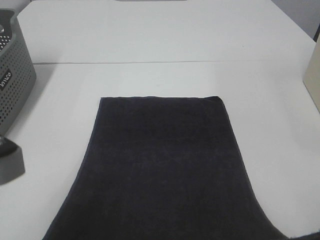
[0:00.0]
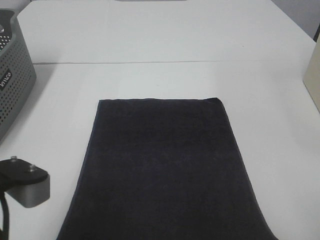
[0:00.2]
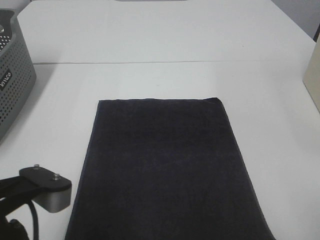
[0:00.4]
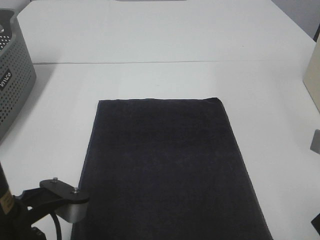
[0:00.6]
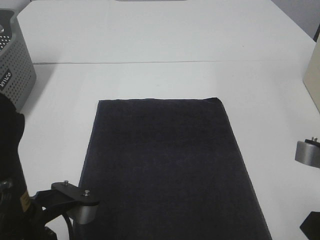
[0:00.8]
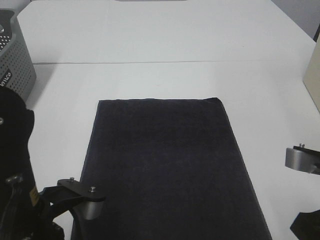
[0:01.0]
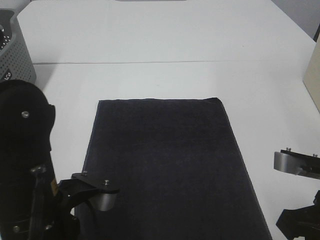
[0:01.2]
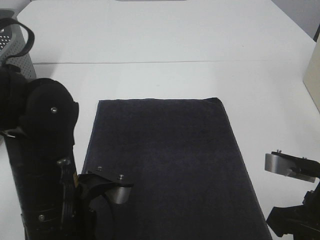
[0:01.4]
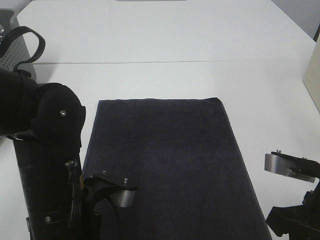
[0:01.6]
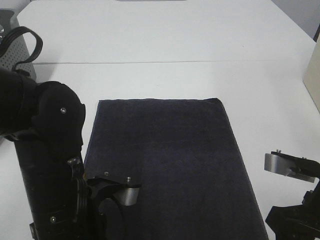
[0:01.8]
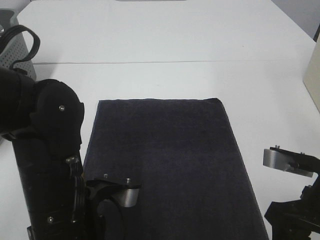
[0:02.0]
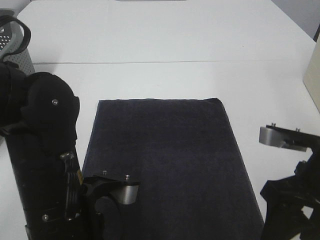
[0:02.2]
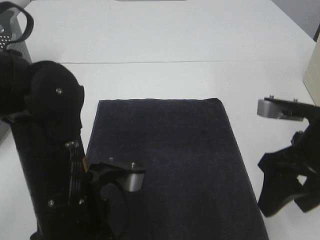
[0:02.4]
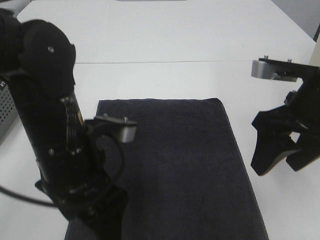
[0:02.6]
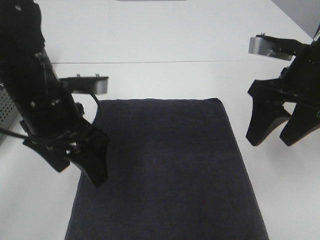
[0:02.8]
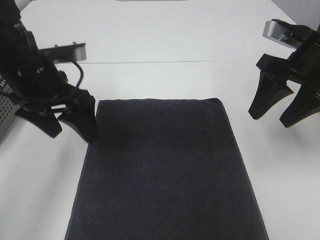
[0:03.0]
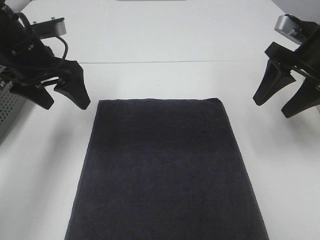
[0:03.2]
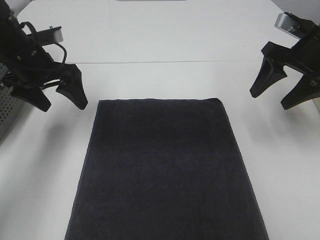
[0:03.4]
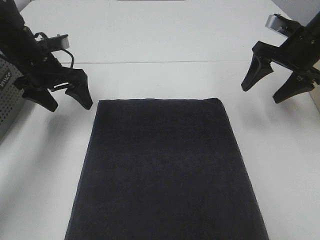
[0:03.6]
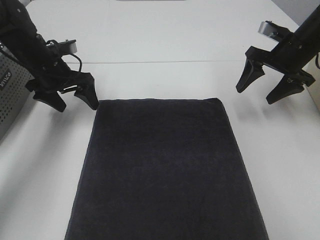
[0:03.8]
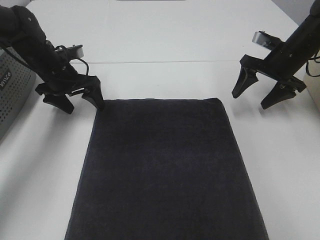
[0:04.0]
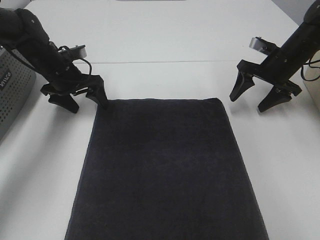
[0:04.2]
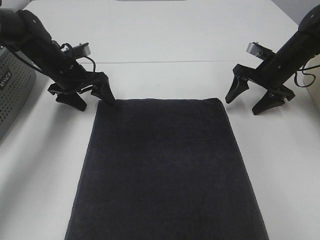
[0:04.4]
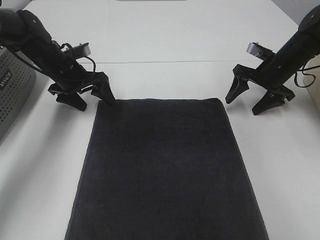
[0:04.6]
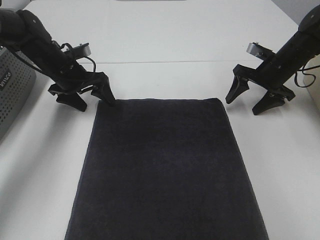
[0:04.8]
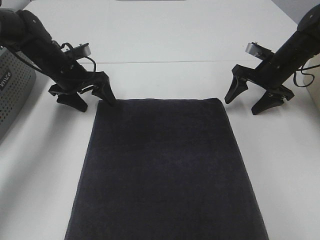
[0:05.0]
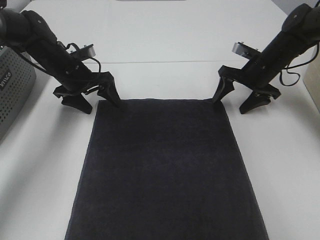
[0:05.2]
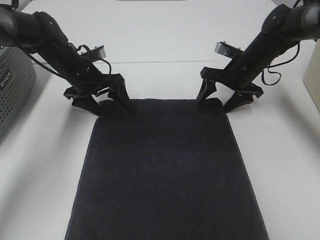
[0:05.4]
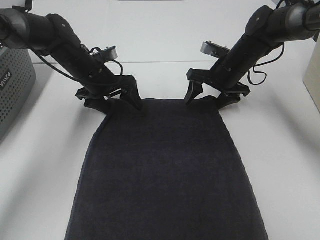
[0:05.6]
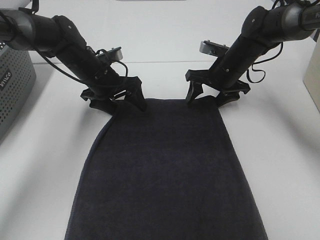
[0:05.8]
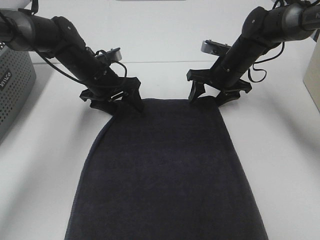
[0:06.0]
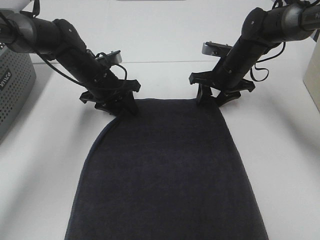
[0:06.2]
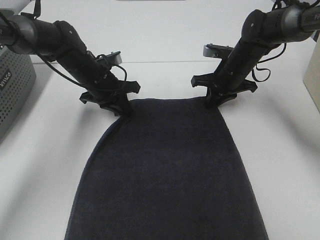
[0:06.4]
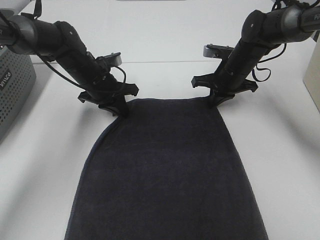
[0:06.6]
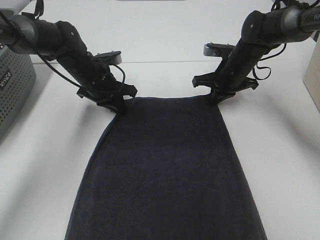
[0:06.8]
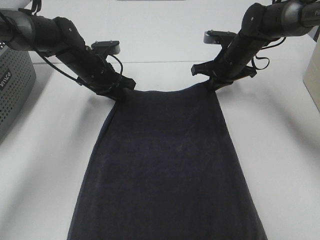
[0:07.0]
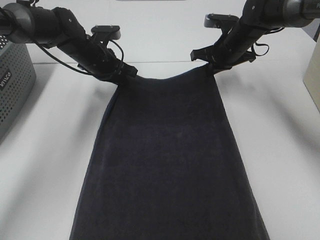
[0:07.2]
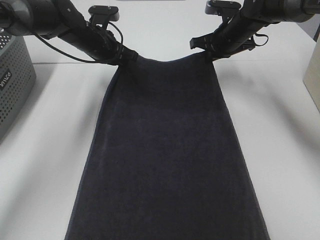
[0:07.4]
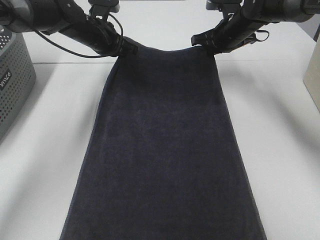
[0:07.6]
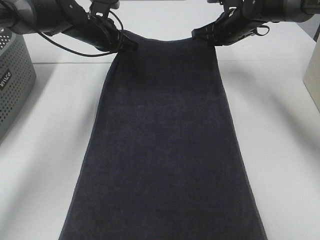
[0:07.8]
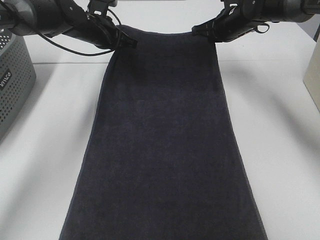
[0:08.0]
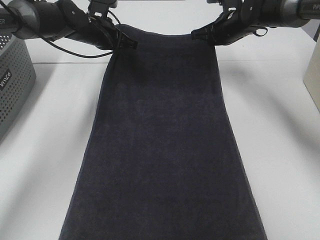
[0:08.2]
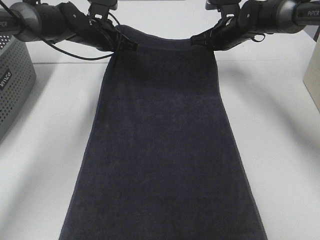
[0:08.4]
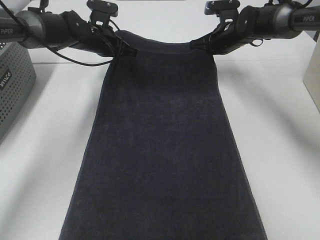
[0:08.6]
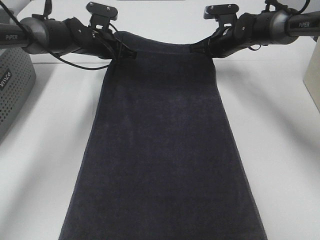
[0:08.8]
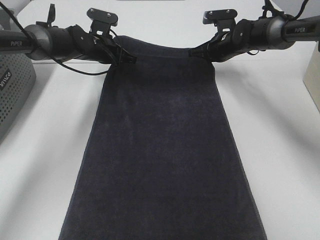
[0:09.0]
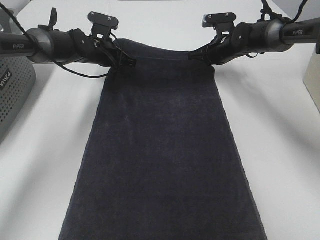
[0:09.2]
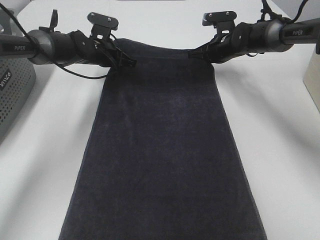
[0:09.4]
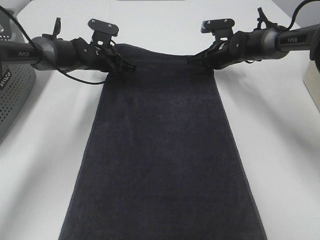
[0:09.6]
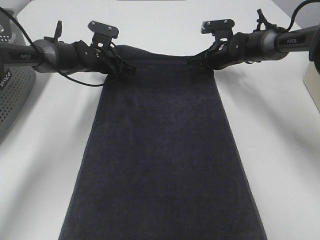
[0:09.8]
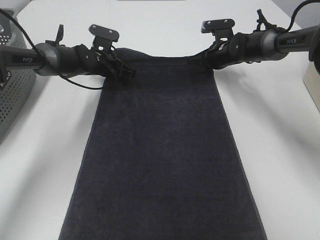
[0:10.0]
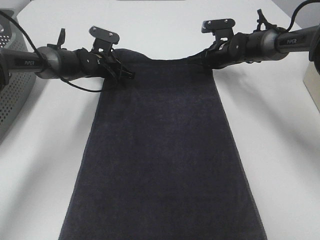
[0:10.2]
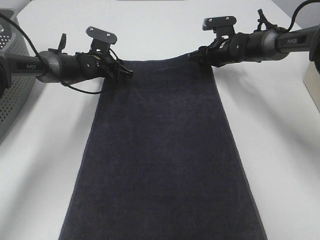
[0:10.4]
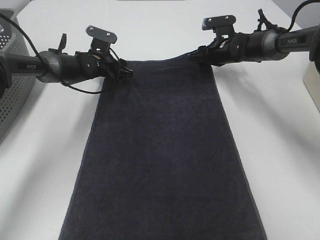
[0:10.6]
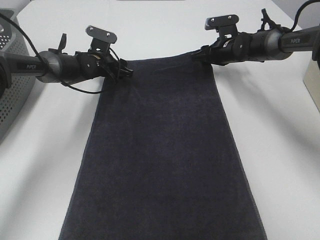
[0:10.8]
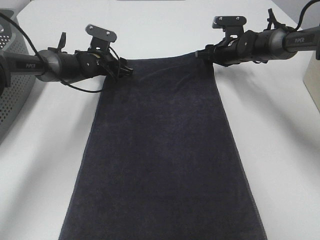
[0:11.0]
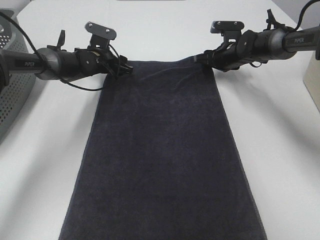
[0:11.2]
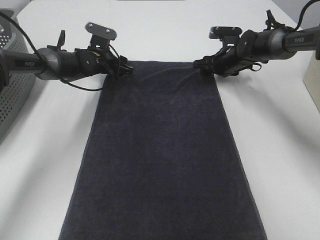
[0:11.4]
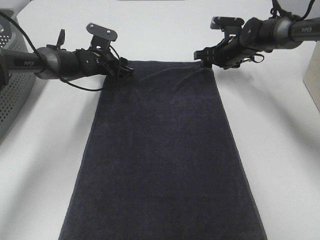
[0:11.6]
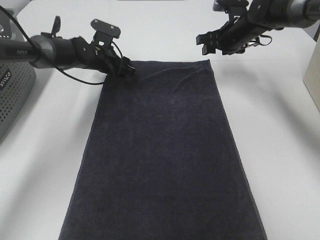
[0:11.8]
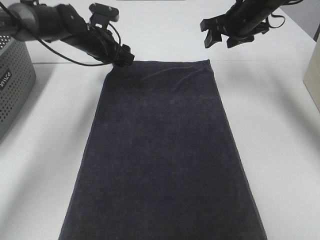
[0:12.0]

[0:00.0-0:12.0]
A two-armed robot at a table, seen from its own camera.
Task of the whole recording: Remove the towel and place it.
Step, 0.0 to 5.0 s: Left hand:adjust the gray towel.
Step, 0.0 to 5.0 s: Right hand:adjust the gray towel.
0.0 to 1.6 s: The left gripper travels downward, to the right and forward by approximately 15 cm; the right gripper goes approximately 10 cm downward and forward.
1.6 to 3.0 s: The left gripper travels forward, to the left and upward by some 20 cm, and opens up. Meanwhile the right gripper heads forward and upward, covering about 20 cm, and opens.
3.0 to 4.4 s: The grippers both shift forward and downward by about 20 cm.
4.4 to 6.0 s: The left gripper goes some 5 cm to the right. Meanwhile the right gripper is displaced to the left by roughly 10 cm.
6.0 to 7.6 s: The right gripper moves upward and forward, about 10 cm, and closes; the left gripper shifts roughly 10 cm forward and upward, and closes up.
7.6 to 9.0 s: The two grippers go some 5 cm downward.
9.0 to 10.4 s: The right gripper opens. Meanwhile the left gripper heads downward, covering roughly 5 cm, and opens its fingers.
10.4 to 12.0 s: The right gripper shifts about 15 cm upward and backward; the left gripper is displaced upward by roughly 10 cm.

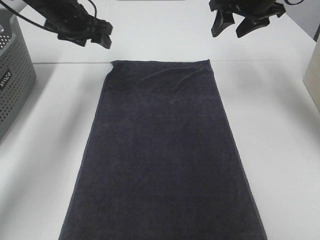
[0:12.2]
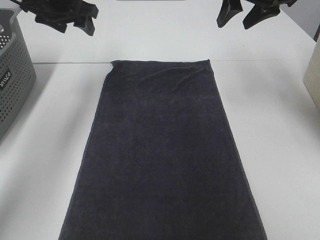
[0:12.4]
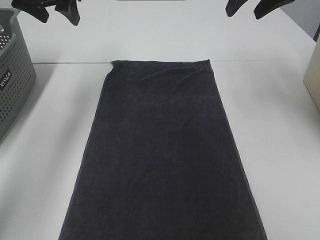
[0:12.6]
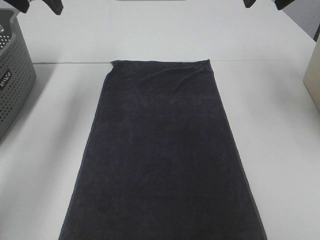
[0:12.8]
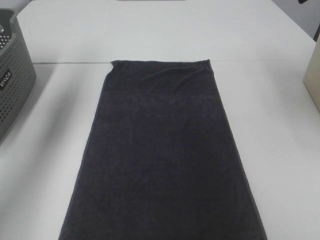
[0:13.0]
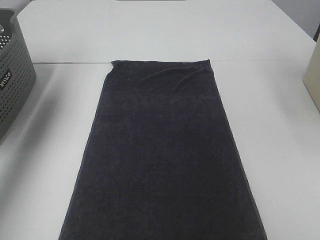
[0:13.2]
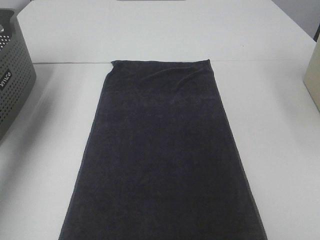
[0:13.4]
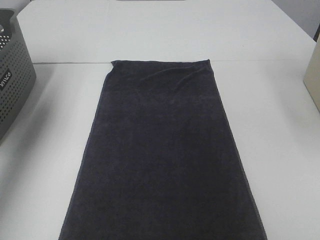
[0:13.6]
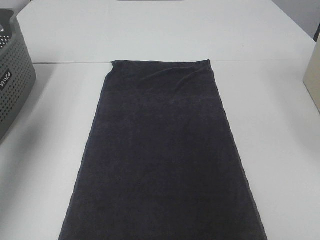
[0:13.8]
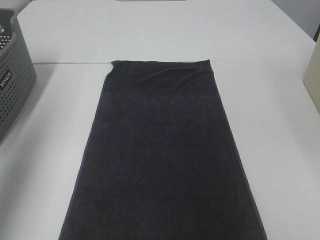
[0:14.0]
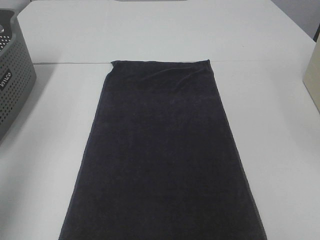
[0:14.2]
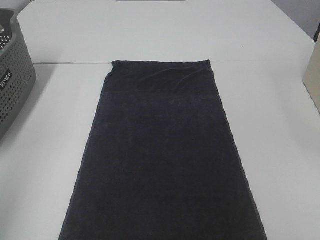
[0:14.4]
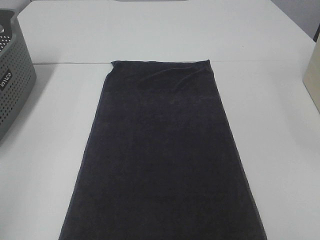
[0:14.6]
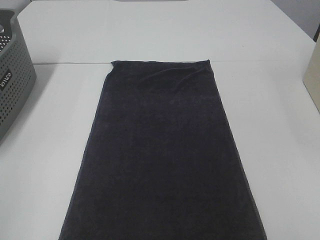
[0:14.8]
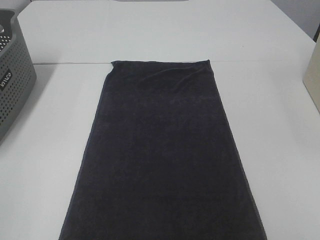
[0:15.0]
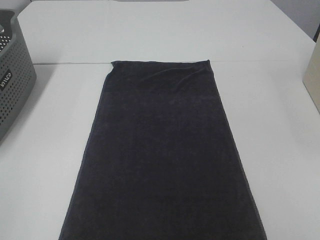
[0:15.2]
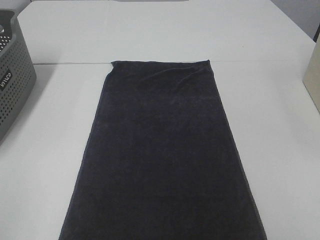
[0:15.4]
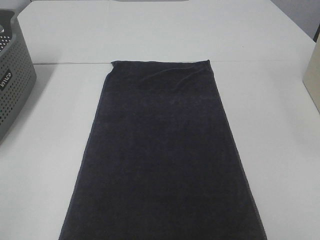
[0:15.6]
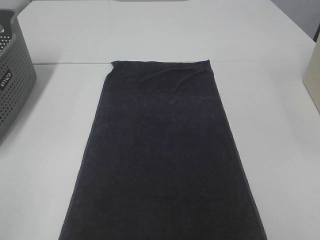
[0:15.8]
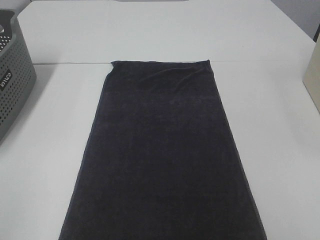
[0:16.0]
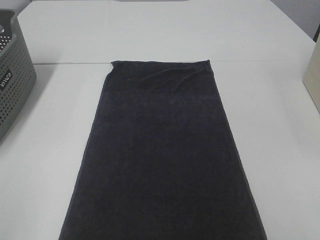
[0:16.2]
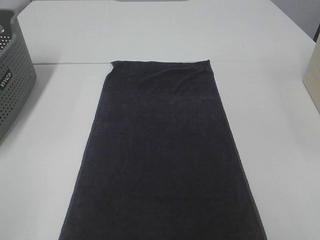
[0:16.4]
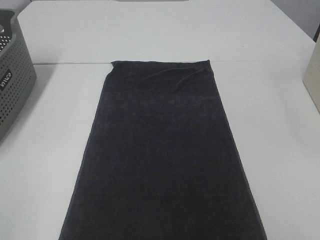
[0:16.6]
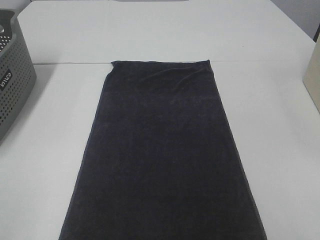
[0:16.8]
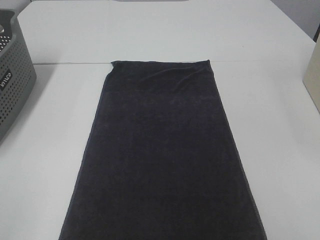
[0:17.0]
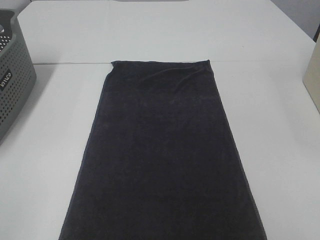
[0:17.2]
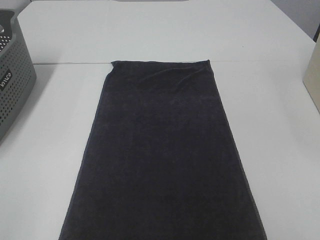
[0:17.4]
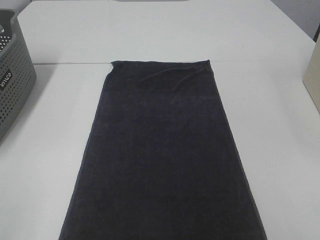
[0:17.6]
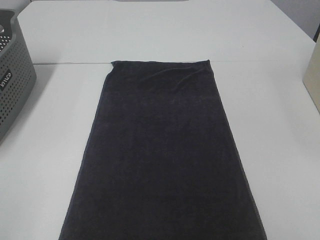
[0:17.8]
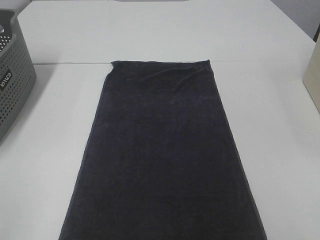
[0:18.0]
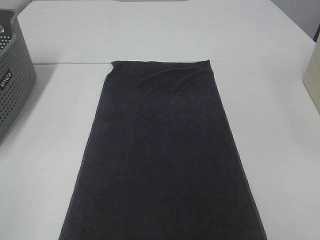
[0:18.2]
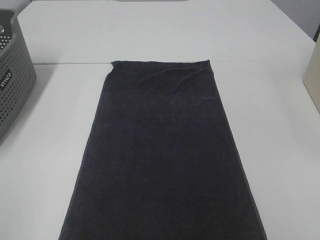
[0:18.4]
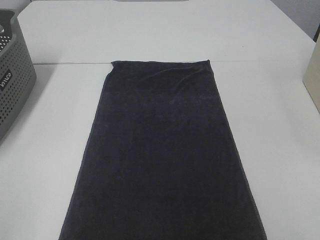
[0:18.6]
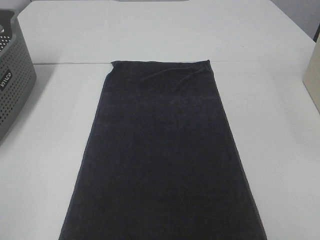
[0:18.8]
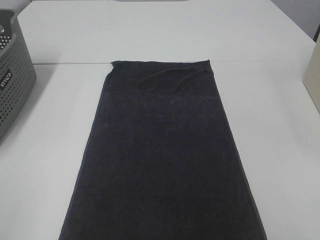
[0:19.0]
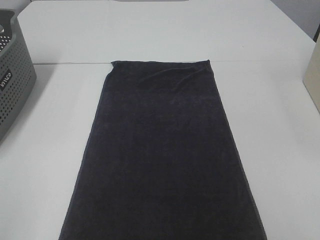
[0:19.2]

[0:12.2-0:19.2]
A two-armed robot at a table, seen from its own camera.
Task of the whole recording: Remove the towel and place it.
12.2 to 13.6 s: The right gripper heads upward, backward and to the right, covering about 20 cm. Meanwhile the left gripper heads upward, to the left and backward, covering roughly 30 cm.
13.6 to 15.0 s: The left gripper moves backward, approximately 40 cm.
16.4 to 19.2 s: Neither gripper changes place.

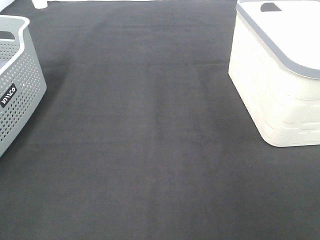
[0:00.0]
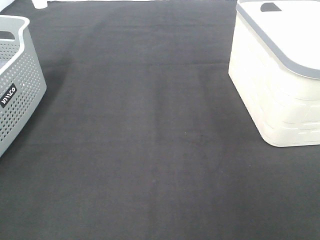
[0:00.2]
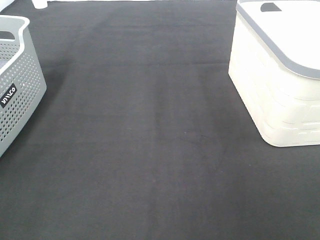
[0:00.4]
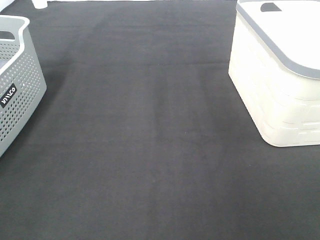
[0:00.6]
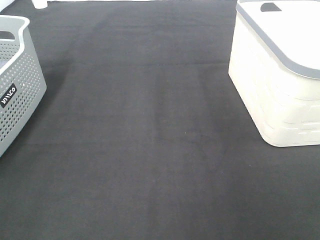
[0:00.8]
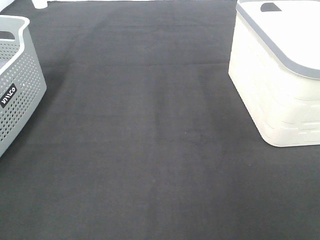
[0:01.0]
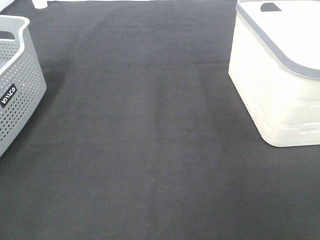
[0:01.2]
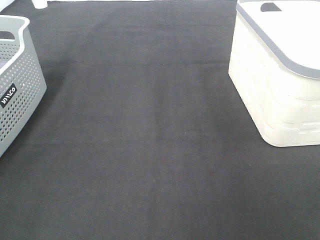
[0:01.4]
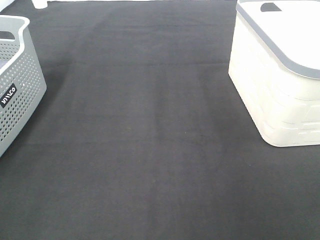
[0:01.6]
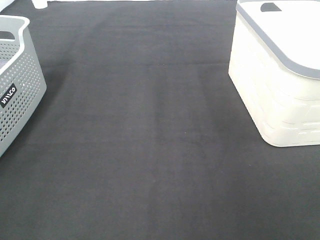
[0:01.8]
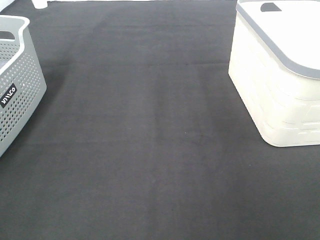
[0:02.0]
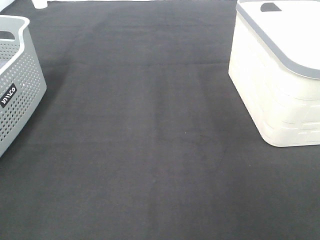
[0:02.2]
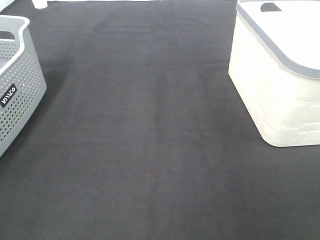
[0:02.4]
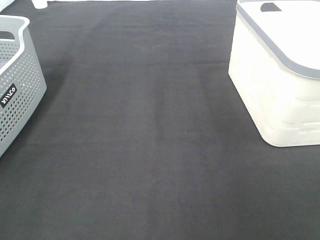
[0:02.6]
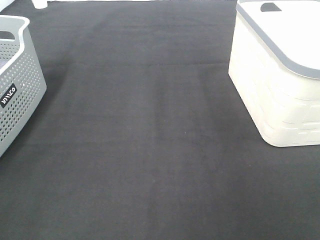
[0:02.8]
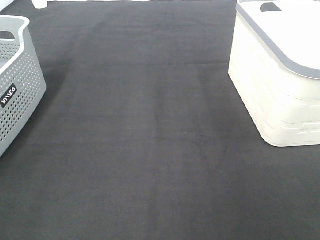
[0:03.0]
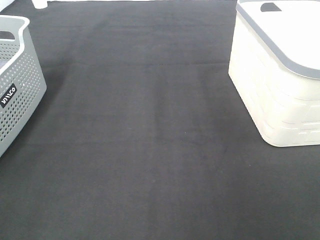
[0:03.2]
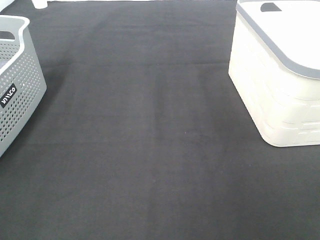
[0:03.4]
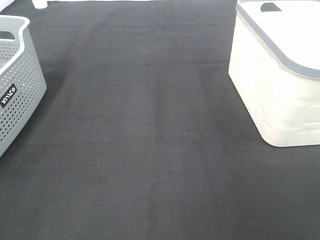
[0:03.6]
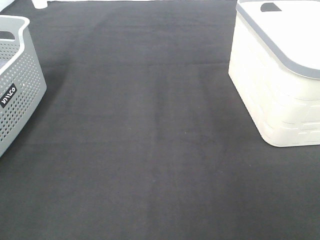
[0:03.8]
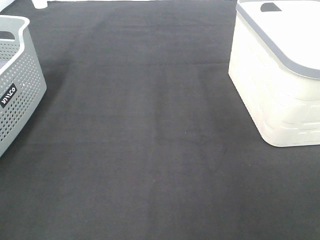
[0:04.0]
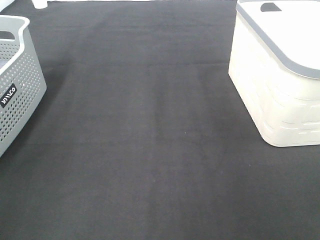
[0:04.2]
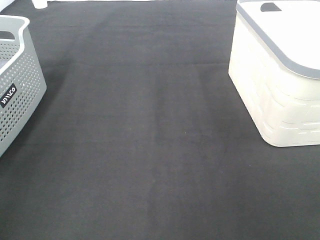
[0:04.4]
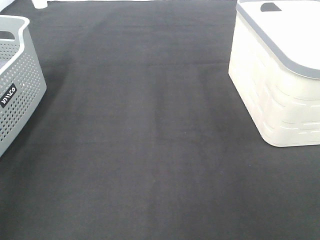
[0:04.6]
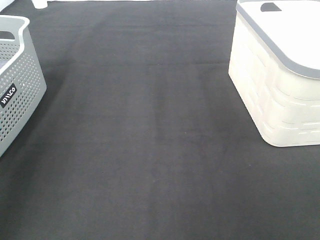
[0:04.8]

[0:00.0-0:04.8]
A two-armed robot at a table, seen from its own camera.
Task of the whole recording: Remove the towel and place it.
0.0 to 3.2 s: Neither gripper changes place.
3.2 to 4.8 s: The left gripper moves forward and upward, some 25 cm.
